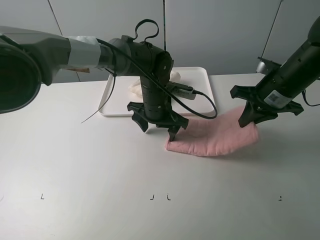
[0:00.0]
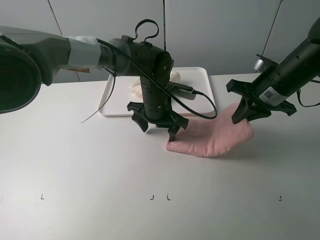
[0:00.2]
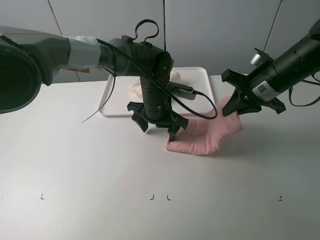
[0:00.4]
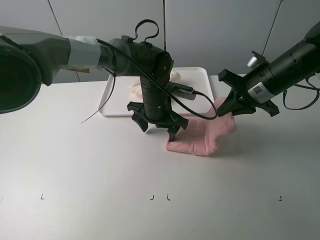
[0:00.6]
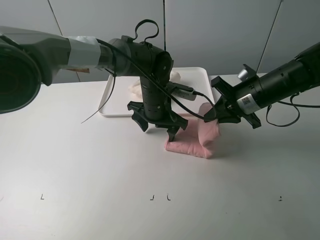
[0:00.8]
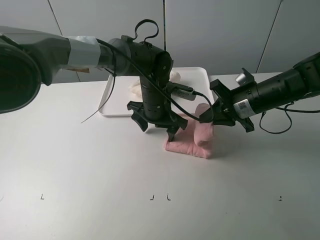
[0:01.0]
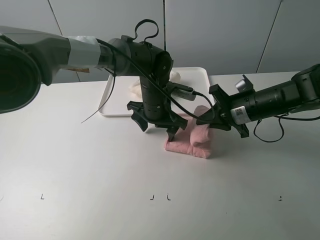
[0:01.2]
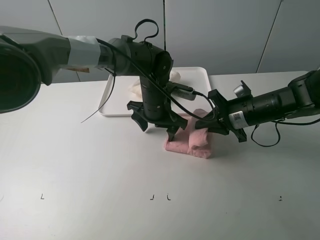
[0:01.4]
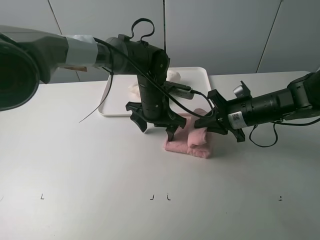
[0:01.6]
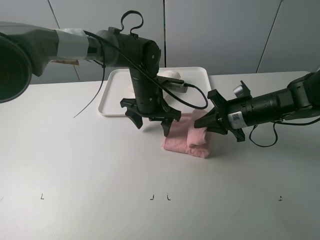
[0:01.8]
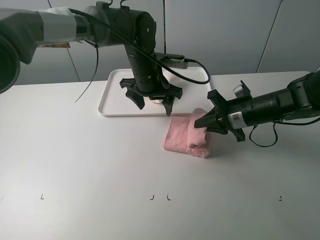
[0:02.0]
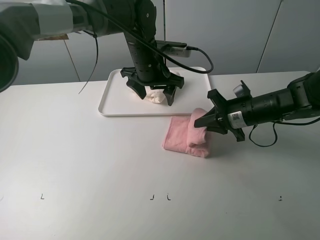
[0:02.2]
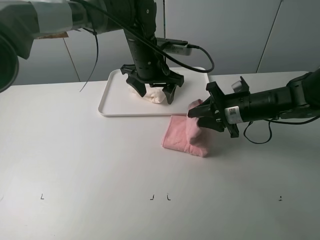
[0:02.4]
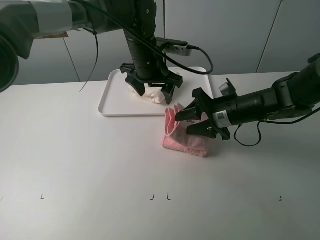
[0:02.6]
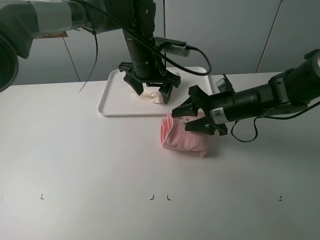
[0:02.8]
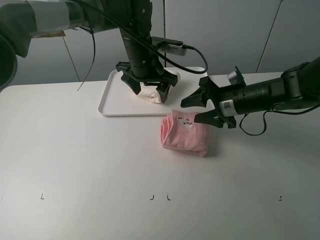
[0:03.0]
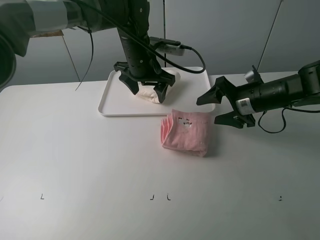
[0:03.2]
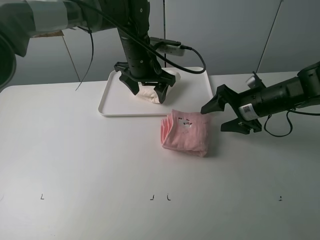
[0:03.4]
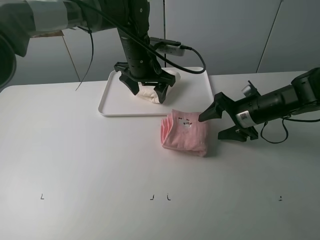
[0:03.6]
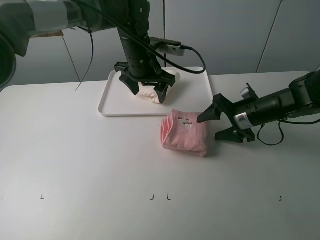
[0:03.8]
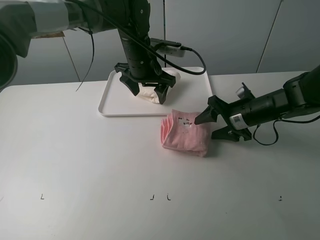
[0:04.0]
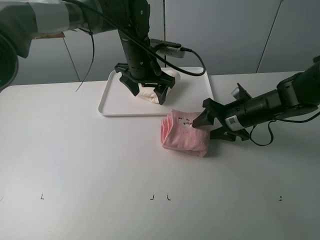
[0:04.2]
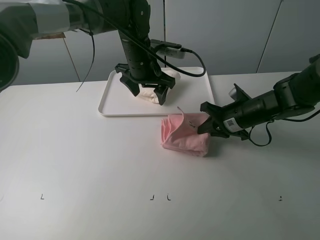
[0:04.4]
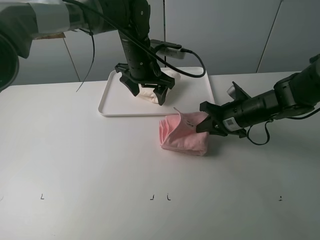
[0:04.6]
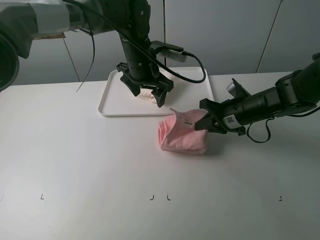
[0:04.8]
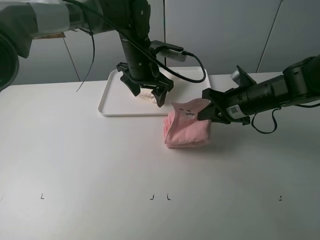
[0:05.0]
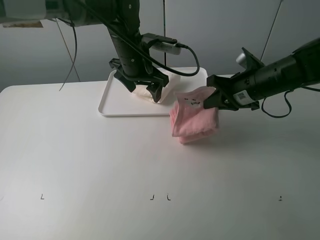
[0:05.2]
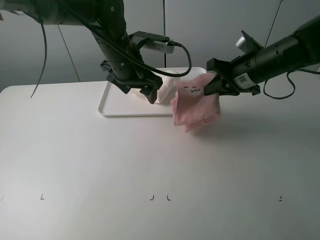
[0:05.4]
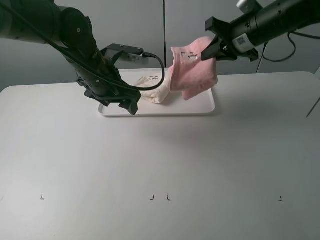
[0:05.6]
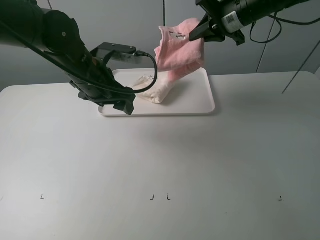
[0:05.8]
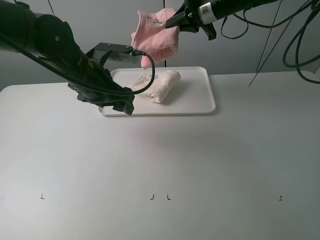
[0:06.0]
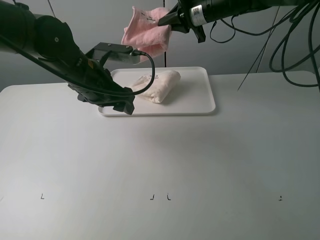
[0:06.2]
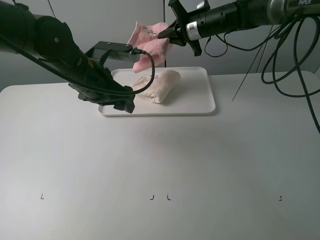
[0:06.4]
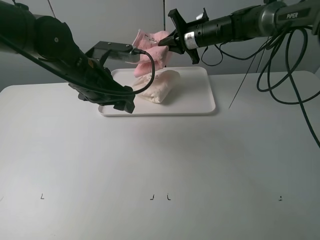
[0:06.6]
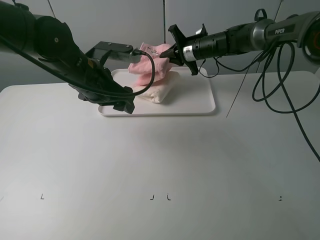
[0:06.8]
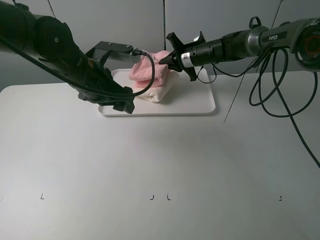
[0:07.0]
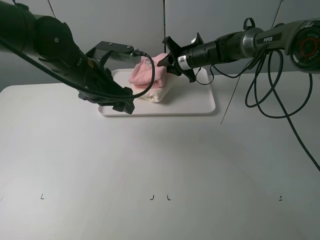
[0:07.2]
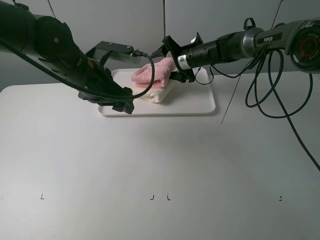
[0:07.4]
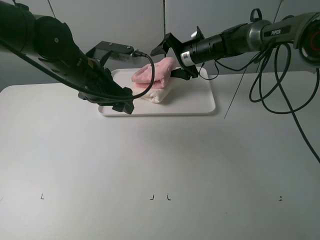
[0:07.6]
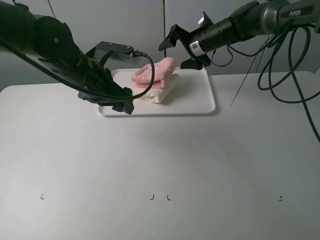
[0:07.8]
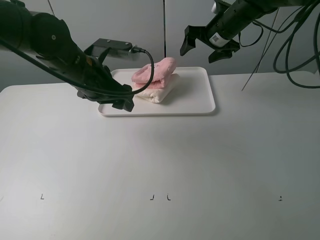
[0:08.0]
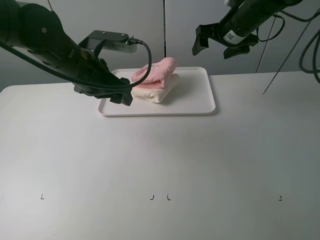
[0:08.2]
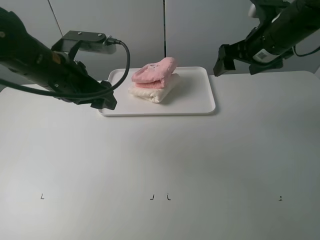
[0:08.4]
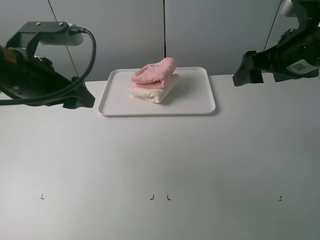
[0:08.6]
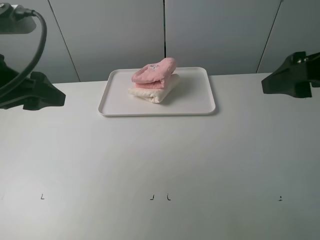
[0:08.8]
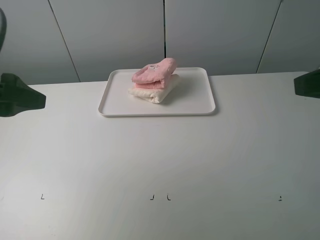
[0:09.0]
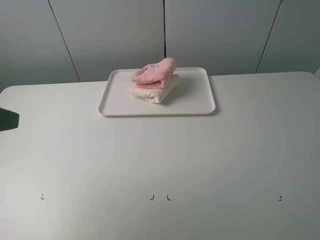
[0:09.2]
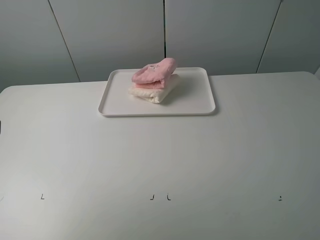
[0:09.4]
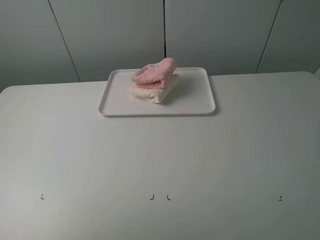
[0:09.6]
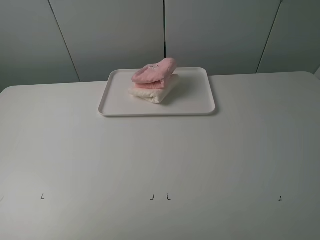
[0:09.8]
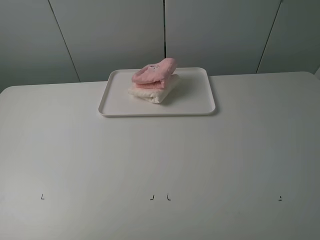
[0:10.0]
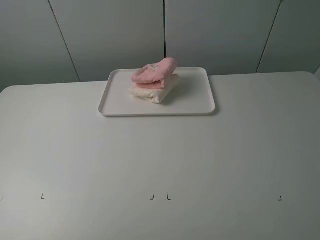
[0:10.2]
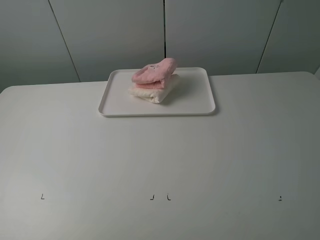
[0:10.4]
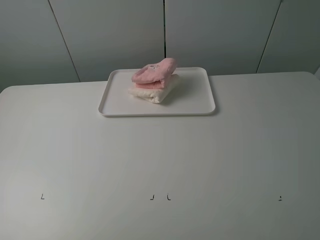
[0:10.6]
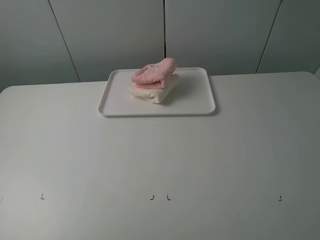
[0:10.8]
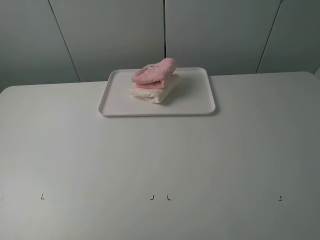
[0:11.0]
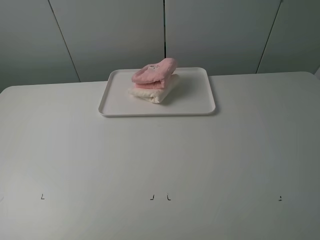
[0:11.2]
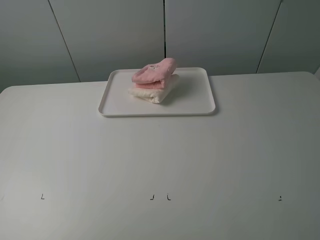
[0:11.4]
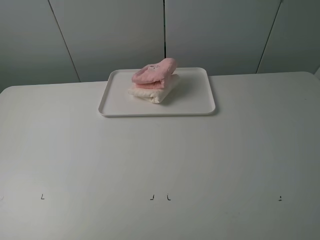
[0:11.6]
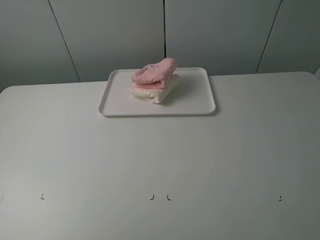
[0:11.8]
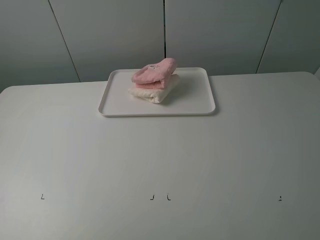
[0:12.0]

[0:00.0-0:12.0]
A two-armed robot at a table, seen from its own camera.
Task of the whole recording: fold one of the towels by two grippers and place it on the tray,then fold another towel by two grippers and place it on the folded towel.
Step, 0:00.0 to 0:03.0: Fold the pink towel from right to left with right gripper.
Step, 0:03.2 to 0:04.6: Grasp the pink towel with the right gripper.
0:00.0 to 0:01.6: The right gripper heads downward, covering about 10 cm.
0:01.6 to 0:03.0: The left gripper heads upward, covering about 10 cm; the right gripper opens.
0:03.0 to 0:04.4: The right gripper closes up.
0:04.4 to 0:06.0: The left gripper goes about 15 cm to the left and backward. The right gripper shifts approximately 25 cm upward and forward.
0:06.0 to 0:07.6: The right gripper shifts approximately 10 cm downward, and opens.
0:07.6 to 0:09.0: The left gripper goes some 25 cm backward, to the left and upward. The right gripper heads backward and upward, covering about 40 cm.
0:09.0 to 0:10.4: The right gripper shifts roughly 10 cm backward, while the left gripper shifts approximately 15 cm backward and to the left.

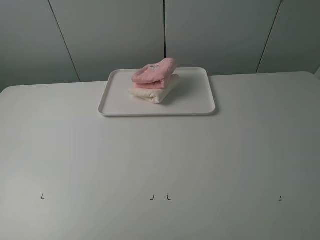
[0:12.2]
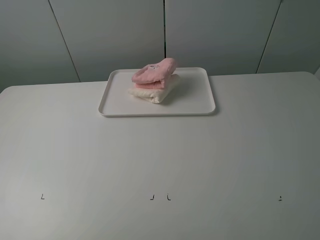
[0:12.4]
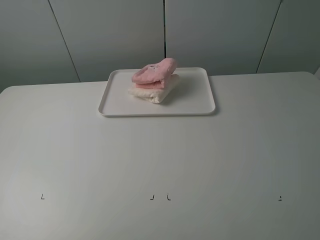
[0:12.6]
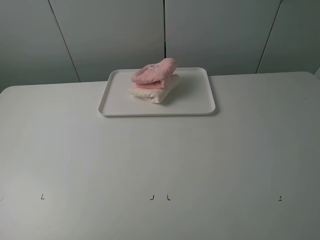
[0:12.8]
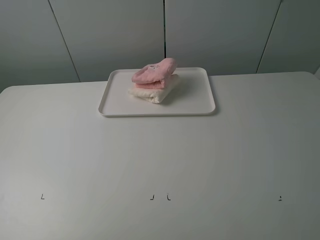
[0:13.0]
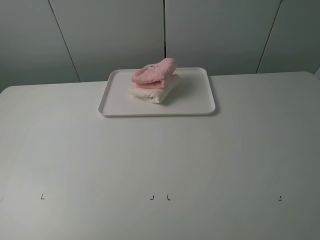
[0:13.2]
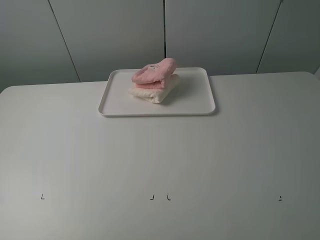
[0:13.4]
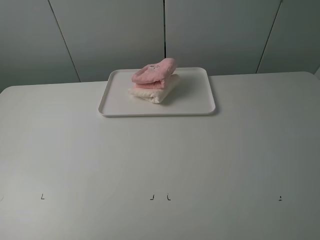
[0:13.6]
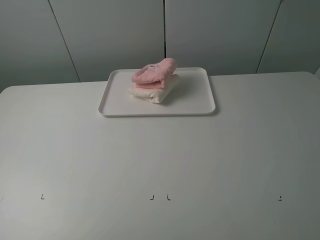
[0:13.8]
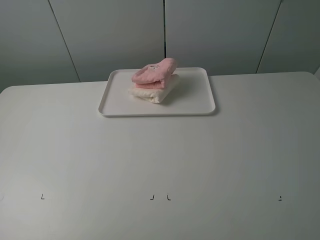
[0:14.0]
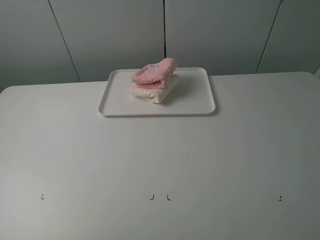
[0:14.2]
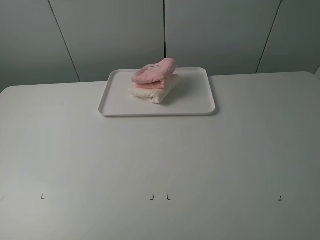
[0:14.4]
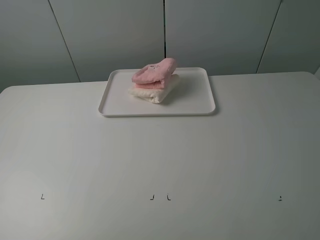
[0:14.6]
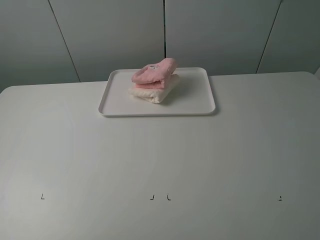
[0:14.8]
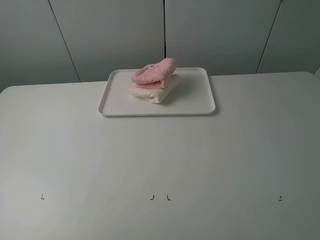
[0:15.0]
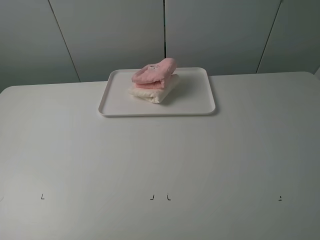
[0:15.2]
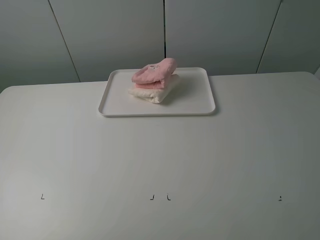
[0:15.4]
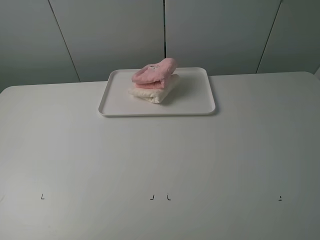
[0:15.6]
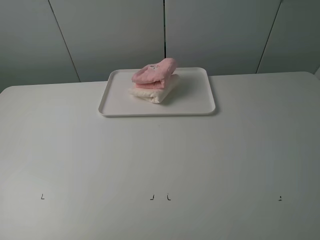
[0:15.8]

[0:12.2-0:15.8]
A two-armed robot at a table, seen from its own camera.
Task of the whole recording: fold one of the towels by two grippers and place it on the tray,then fold another towel by two grippers and place it on the folded towel.
0:14.0 to 0:15.8: Neither gripper changes place.
